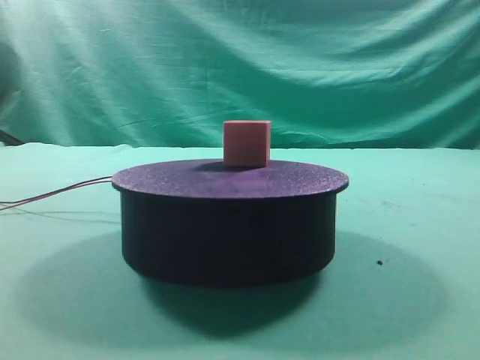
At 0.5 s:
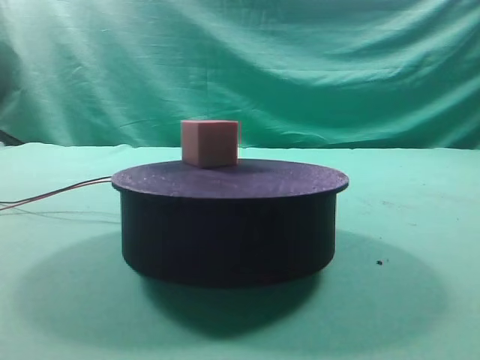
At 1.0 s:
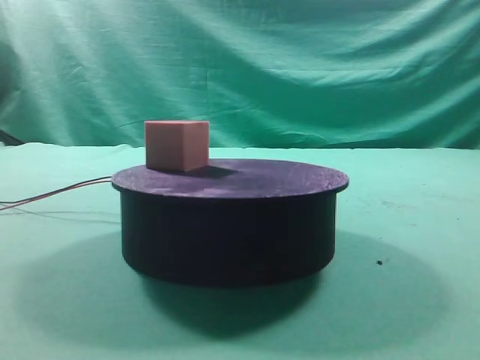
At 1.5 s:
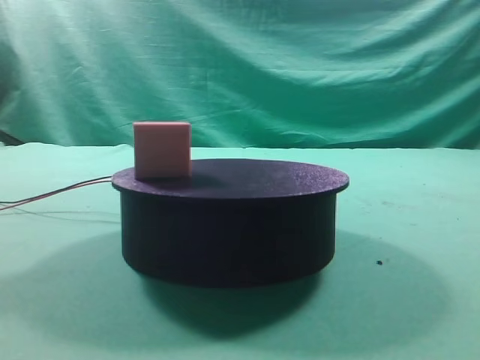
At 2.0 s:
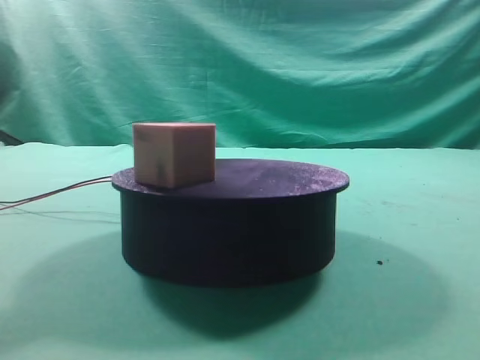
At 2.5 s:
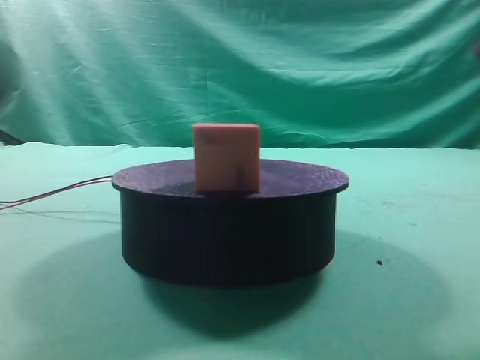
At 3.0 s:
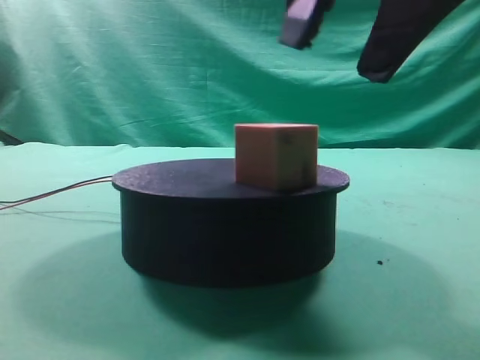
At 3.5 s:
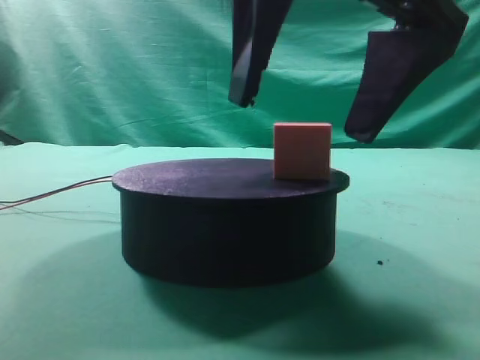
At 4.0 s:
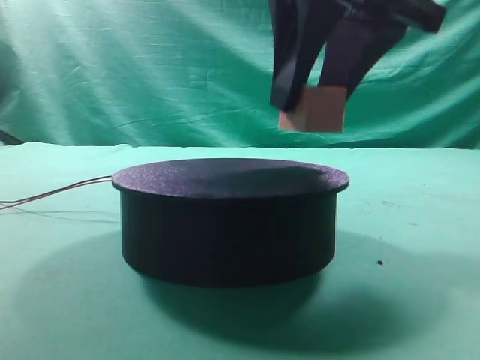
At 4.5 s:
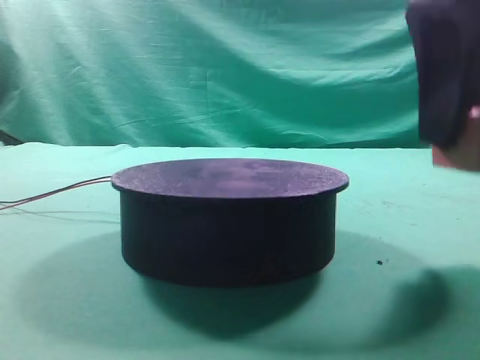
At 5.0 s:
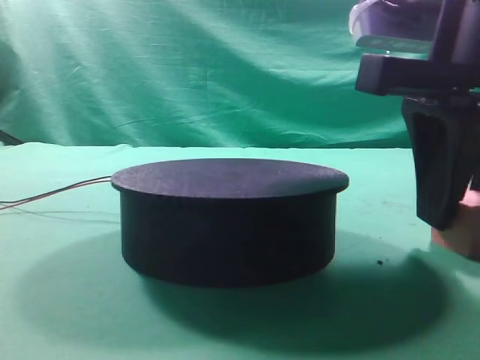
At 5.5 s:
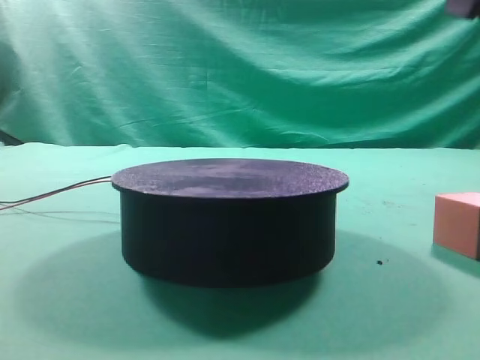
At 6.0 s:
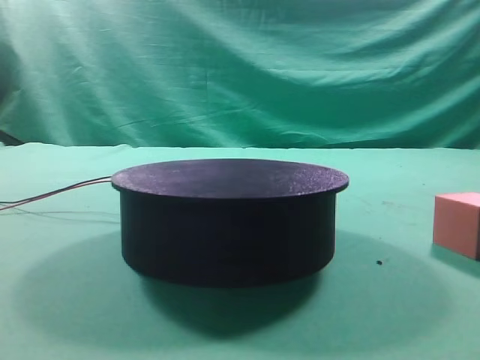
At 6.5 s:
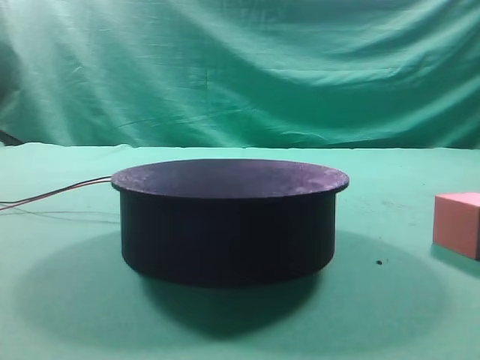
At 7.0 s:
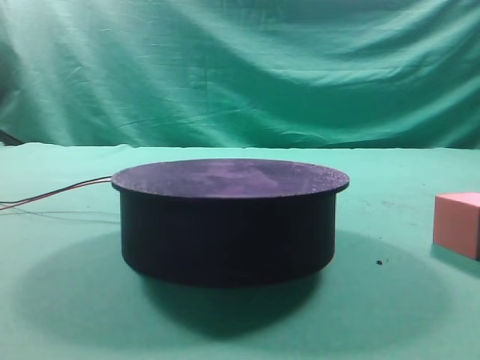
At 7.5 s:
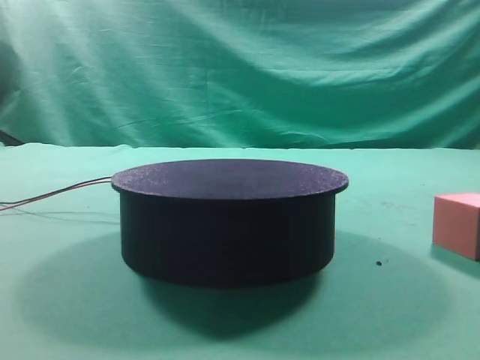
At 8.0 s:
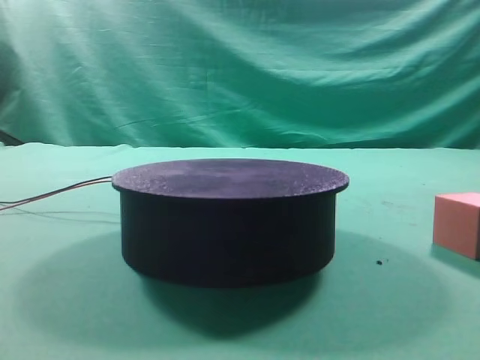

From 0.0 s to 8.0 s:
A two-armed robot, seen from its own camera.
Task of the whole recording: grasp the rotating cube-shaped block on the turntable and place it on the table.
Step, from 0.0 s to 3.5 s: Grasp the rotating cube-shaped block on the turntable.
Step, from 4.0 s to 5.0 s: Place the cube on the desk.

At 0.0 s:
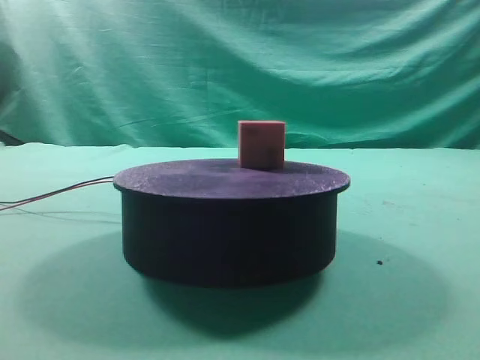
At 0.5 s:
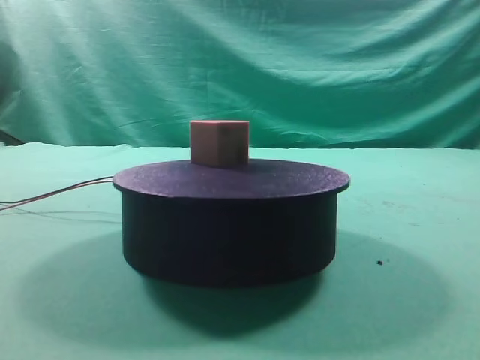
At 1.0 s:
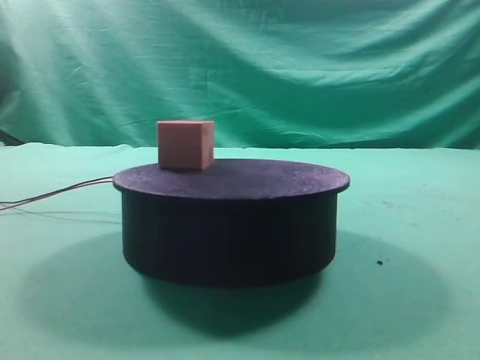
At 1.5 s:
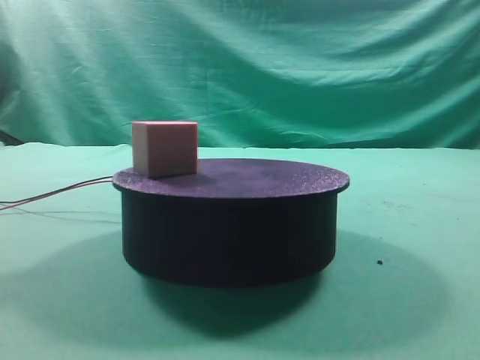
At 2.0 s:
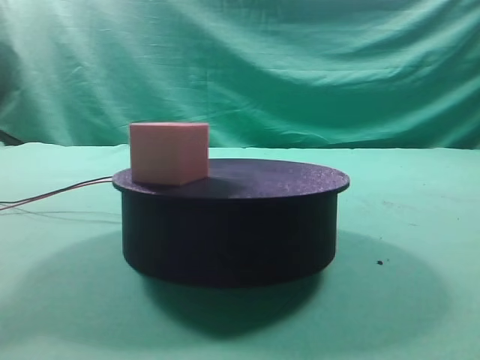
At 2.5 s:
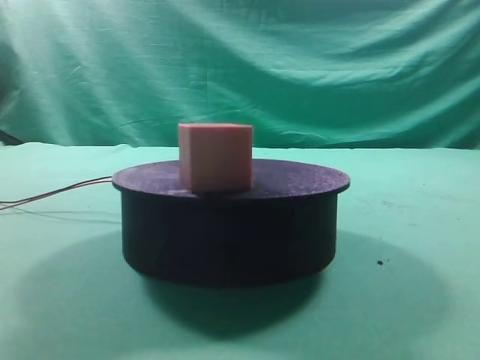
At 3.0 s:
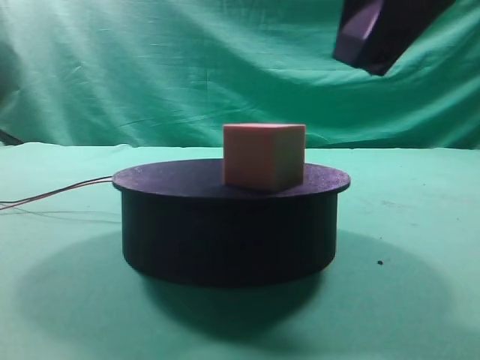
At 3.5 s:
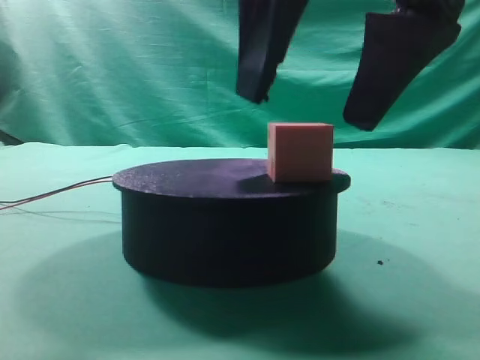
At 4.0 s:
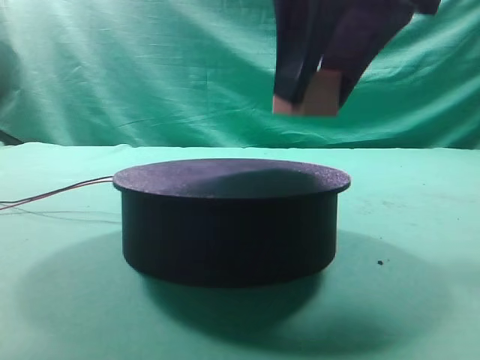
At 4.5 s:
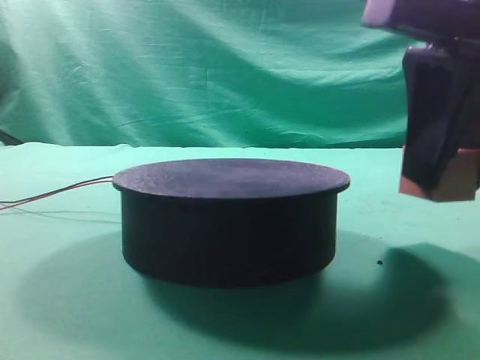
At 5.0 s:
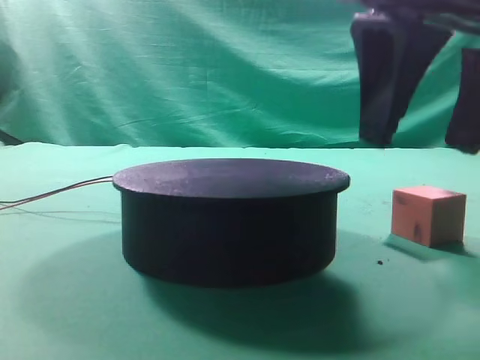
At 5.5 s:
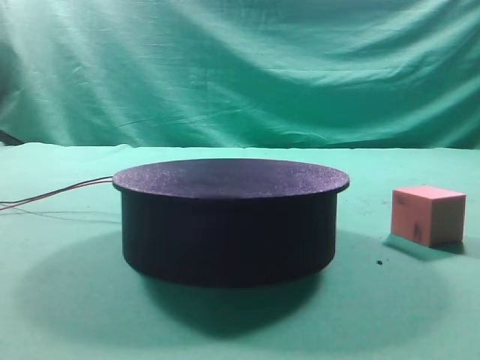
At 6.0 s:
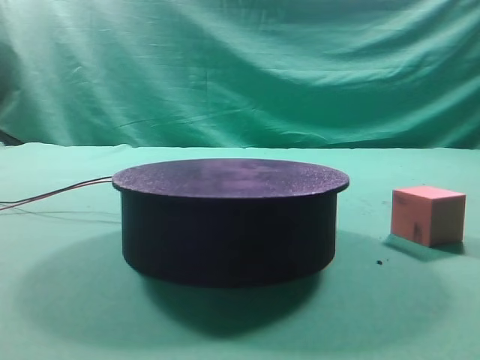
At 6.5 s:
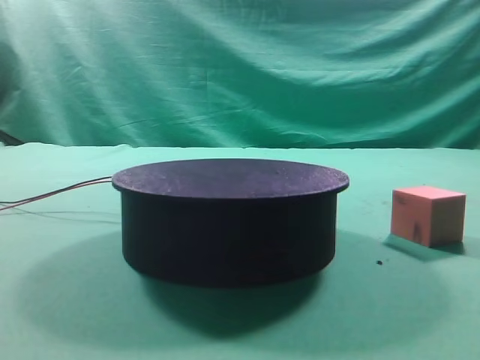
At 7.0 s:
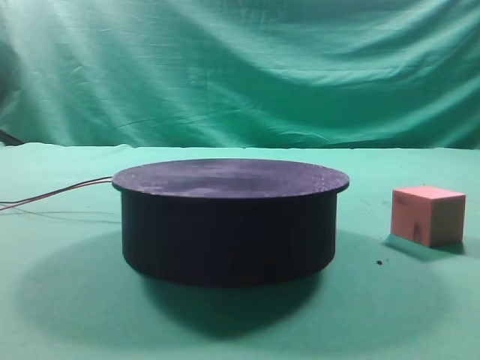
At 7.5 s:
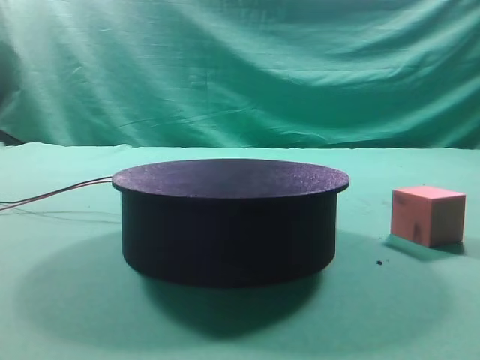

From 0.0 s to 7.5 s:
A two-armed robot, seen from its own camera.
Task of the whole recording: grasp the rotating cube-shaped block on the turntable and place it on the table.
Step, from 0.0 s to 3.5 s: Grasp the rotating cube-shaped block on the turntable.
Step, from 4.0 s to 5.0 s: Place the cube on the desk.
